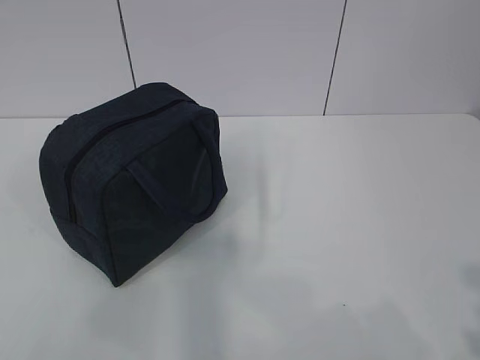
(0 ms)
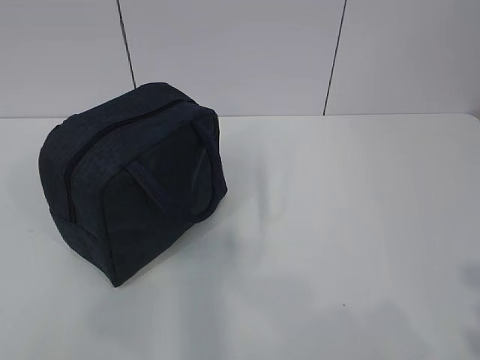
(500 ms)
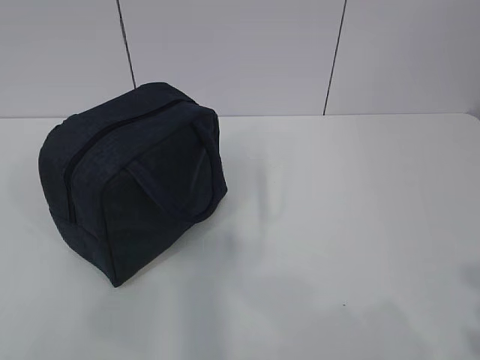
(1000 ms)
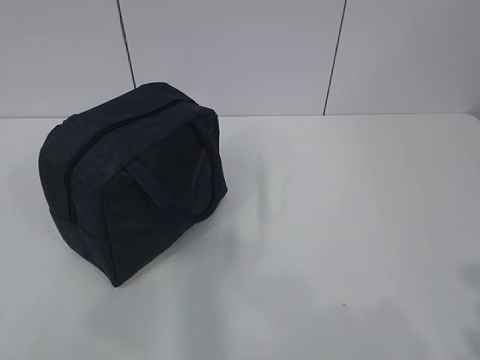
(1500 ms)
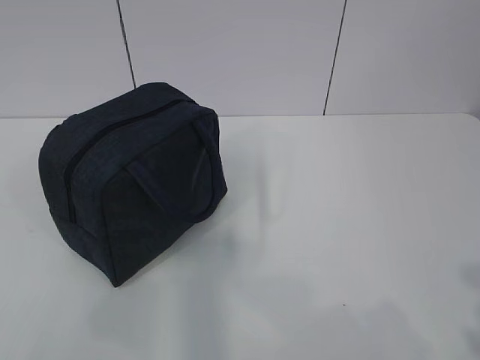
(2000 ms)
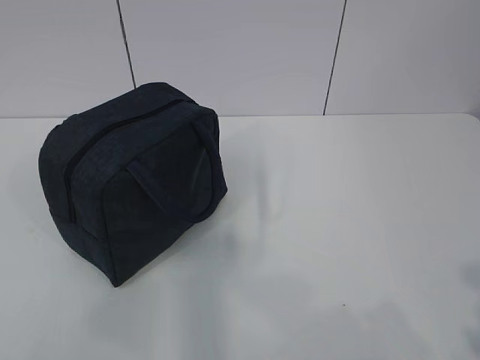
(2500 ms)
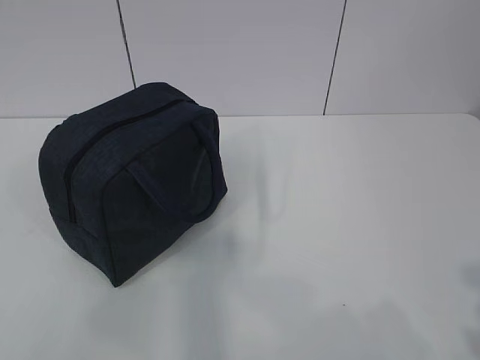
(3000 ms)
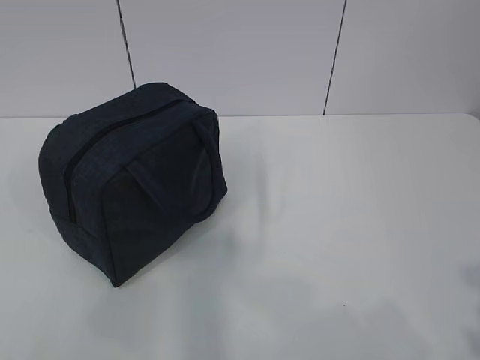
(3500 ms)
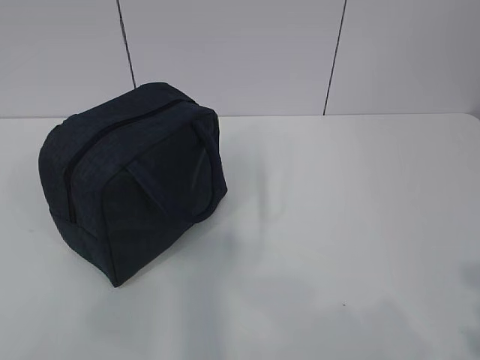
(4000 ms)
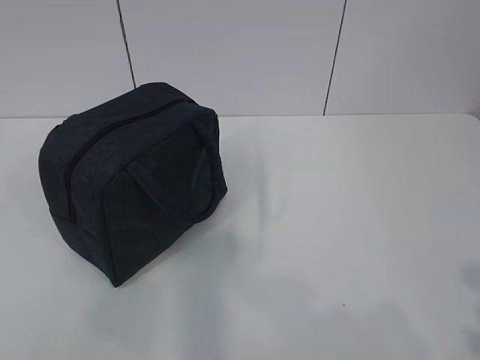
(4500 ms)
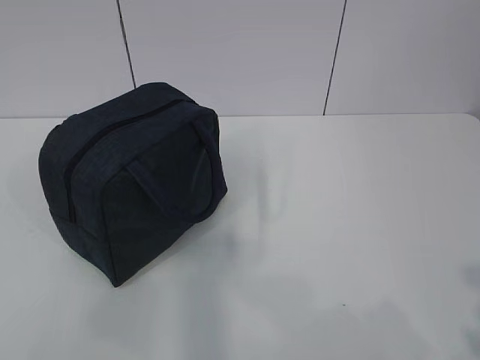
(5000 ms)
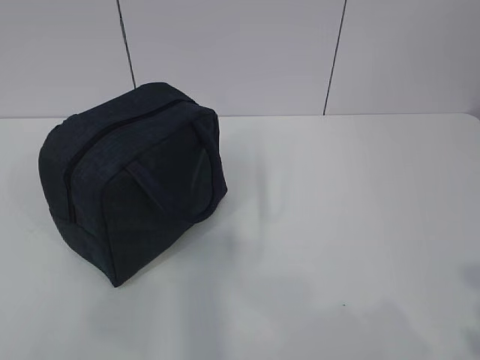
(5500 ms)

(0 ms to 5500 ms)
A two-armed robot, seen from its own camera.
0 ms - 5500 ms: Neither gripper changes place.

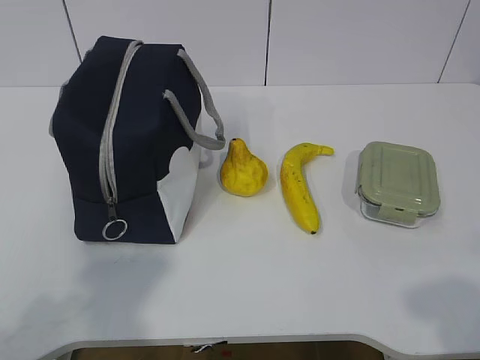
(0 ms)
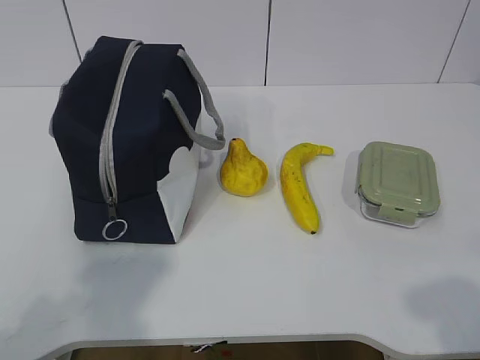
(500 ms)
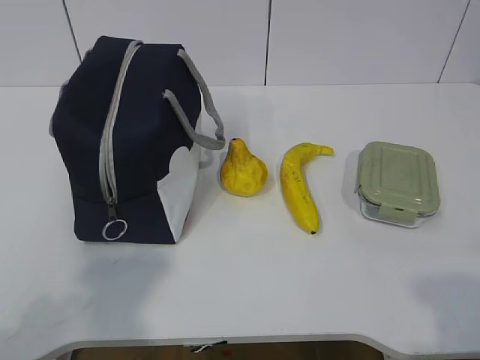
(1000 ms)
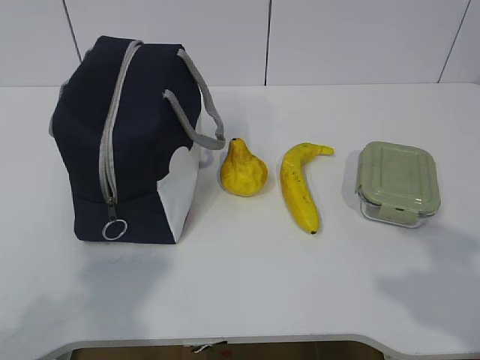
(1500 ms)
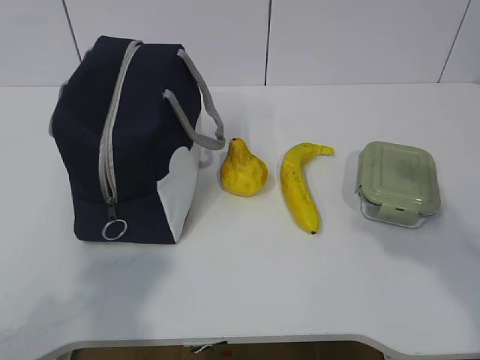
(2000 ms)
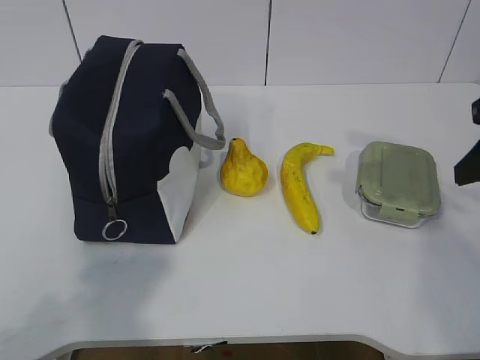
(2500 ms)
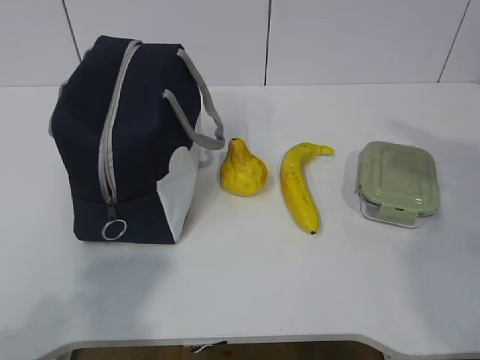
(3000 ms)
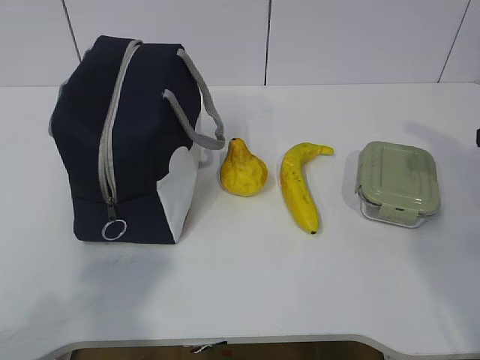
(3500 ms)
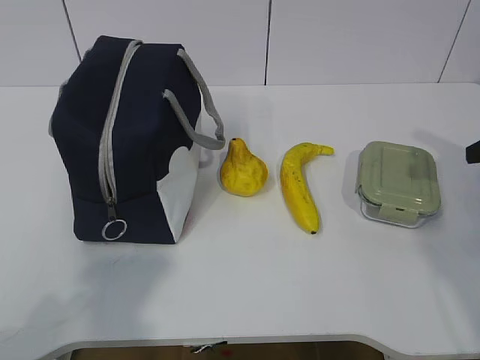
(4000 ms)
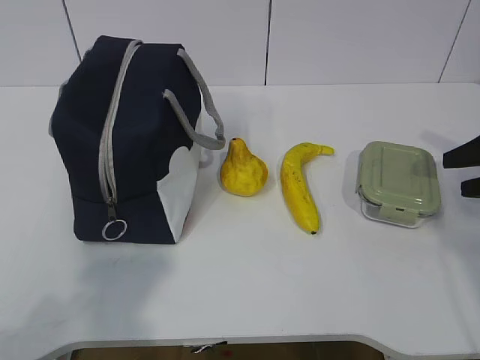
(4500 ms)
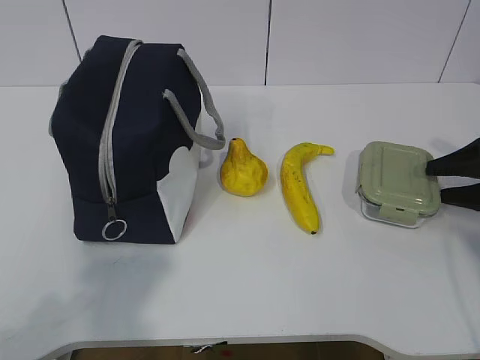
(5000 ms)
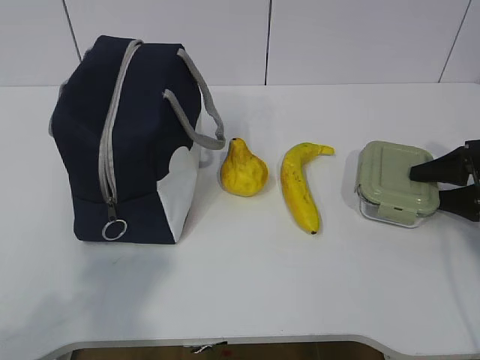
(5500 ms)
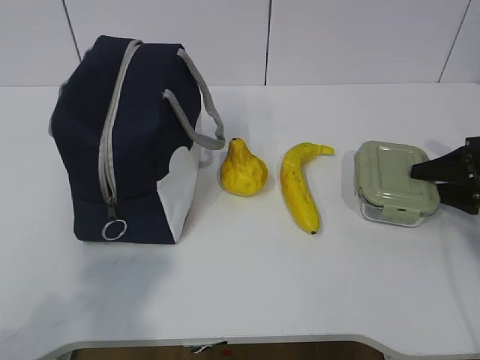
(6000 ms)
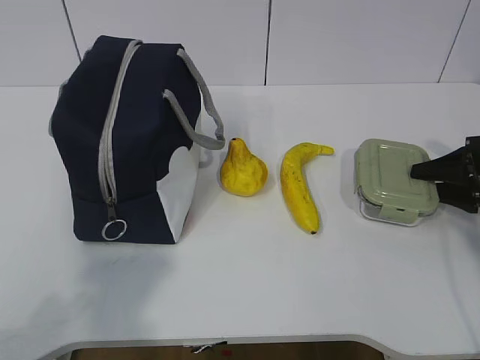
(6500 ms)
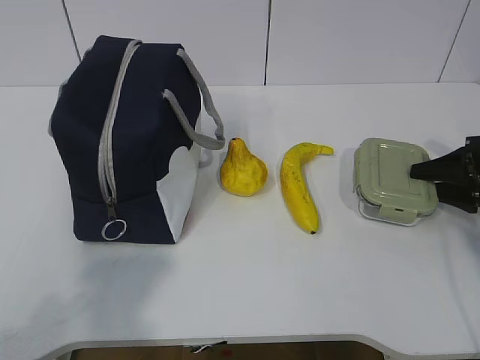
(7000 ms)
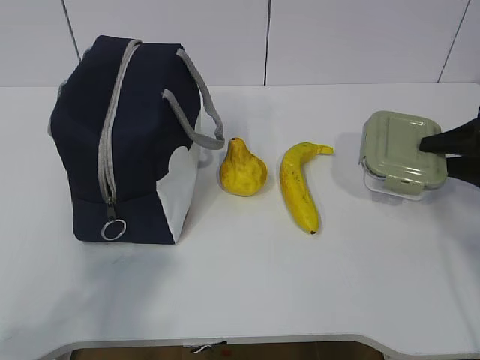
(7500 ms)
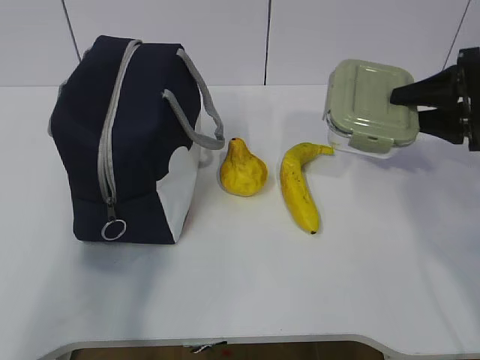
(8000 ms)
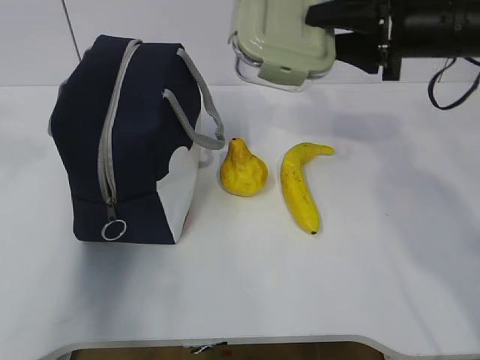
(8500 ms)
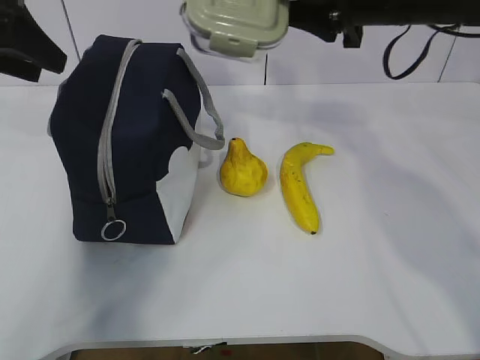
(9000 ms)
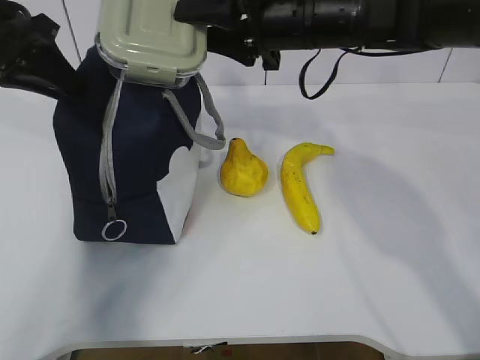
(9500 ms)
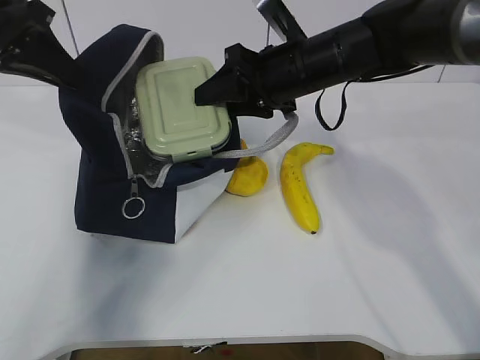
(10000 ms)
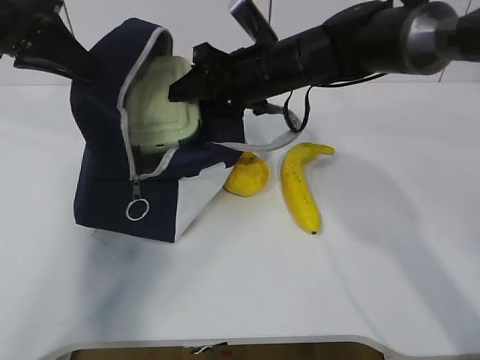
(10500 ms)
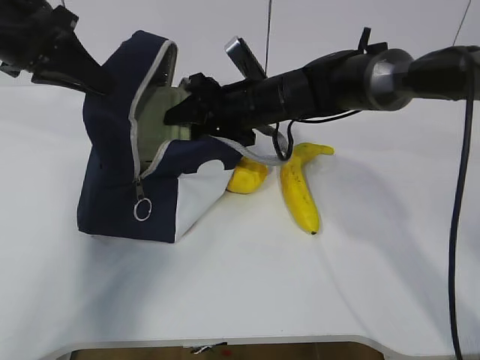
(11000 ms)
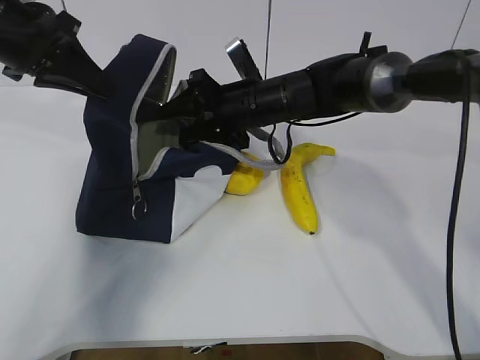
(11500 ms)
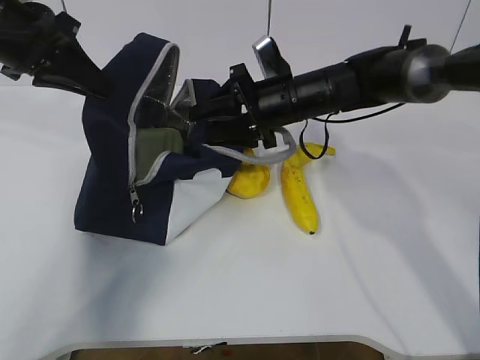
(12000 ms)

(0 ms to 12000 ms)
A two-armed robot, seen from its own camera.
Step, 0 ms - 5500 ms: Grab the lunch box with your right hand.
Step, 8000 ms - 9500 ms: Place it into the bag with your right hand.
2000 ms - 4000 ms: The right gripper travels forward and to the right by some 15 cm, and opens.
4000 ms - 6000 ms: The right gripper goes approximately 15 cm downward and forward.
6000 ms - 8000 ms: The left gripper heads forward and upward, covering about 10 cm, while the right gripper moves upward and to the left, some 10 cm.
8000 ms - 10000 ms: The right gripper moves to the left, some 25 cm, while the left gripper is displaced forward by approximately 30 cm, and closes its fingers.
10000 ms - 12000 ms: The right gripper is displaced downward by about 5 cm.

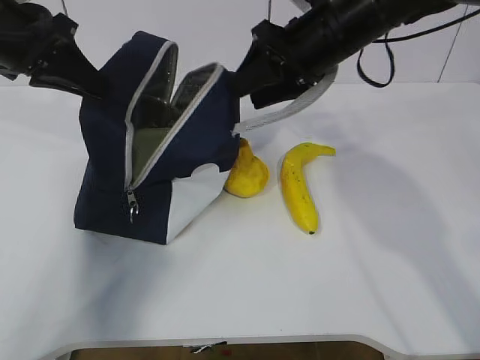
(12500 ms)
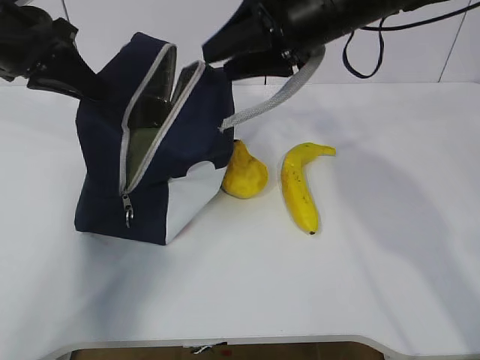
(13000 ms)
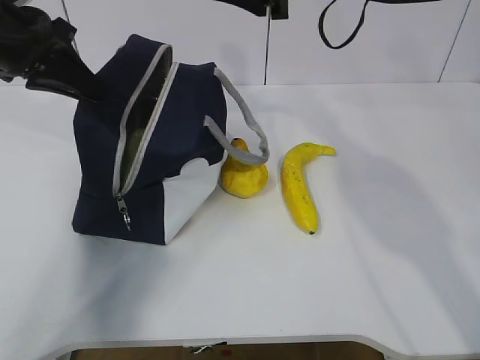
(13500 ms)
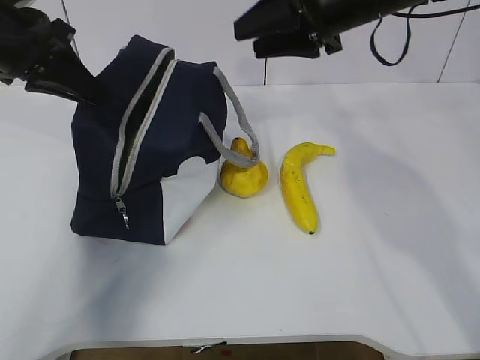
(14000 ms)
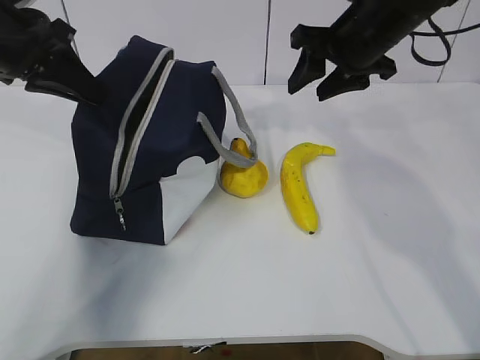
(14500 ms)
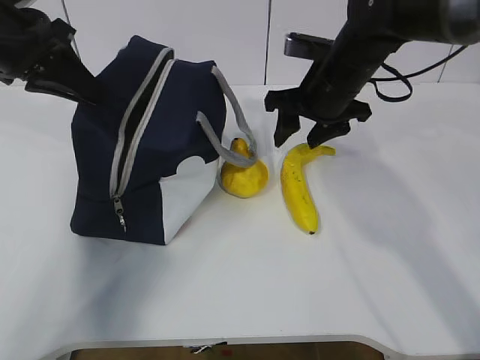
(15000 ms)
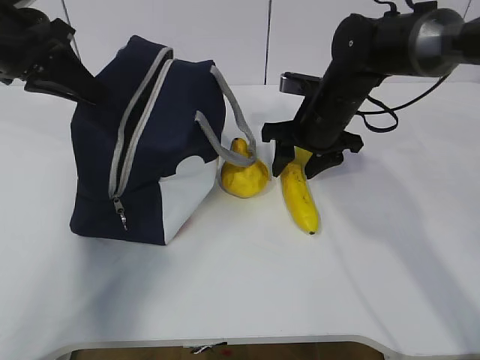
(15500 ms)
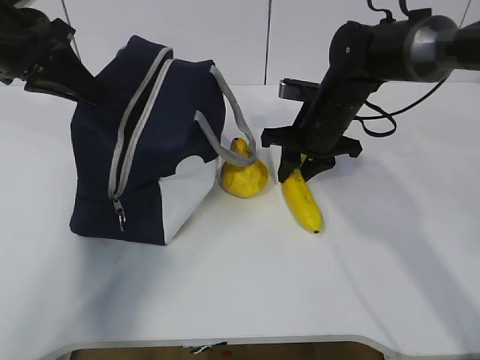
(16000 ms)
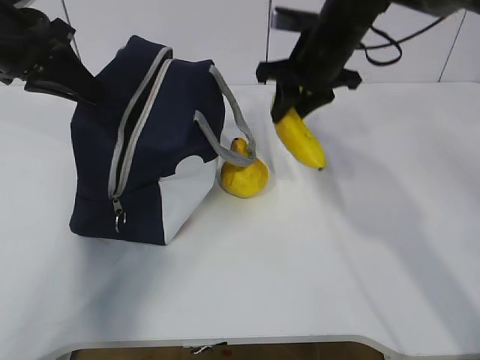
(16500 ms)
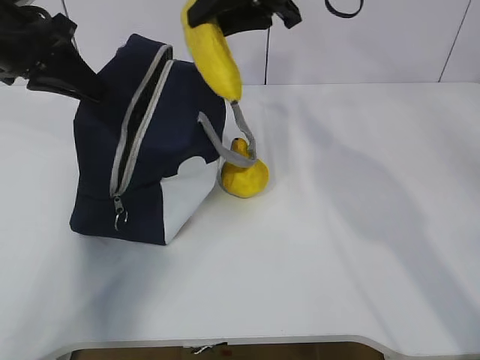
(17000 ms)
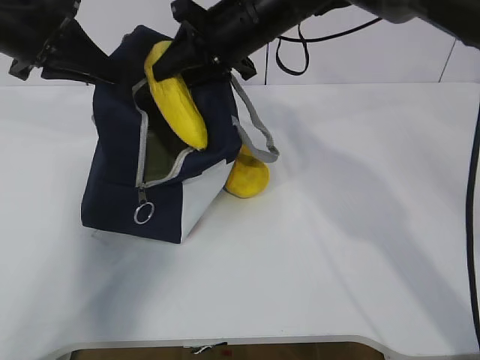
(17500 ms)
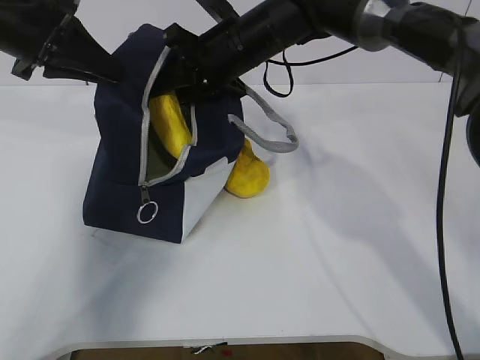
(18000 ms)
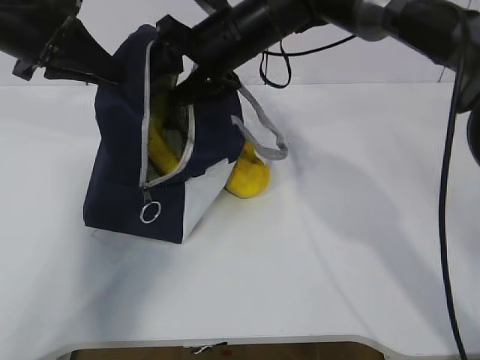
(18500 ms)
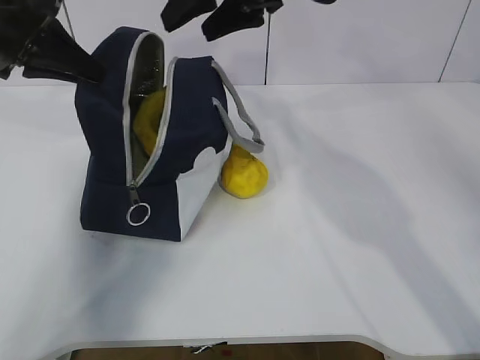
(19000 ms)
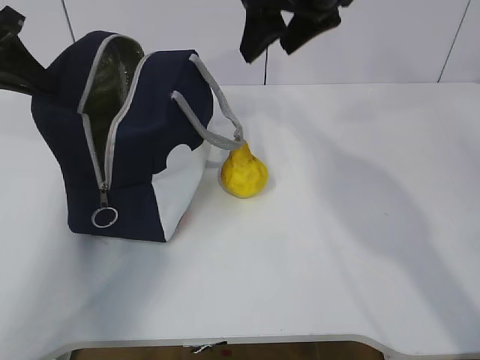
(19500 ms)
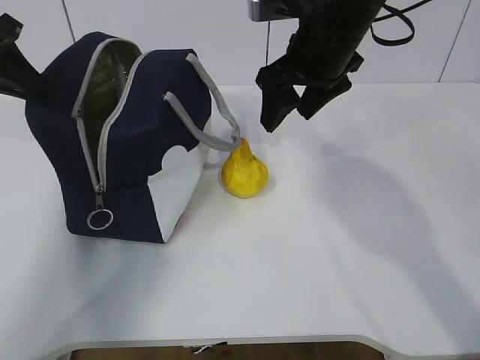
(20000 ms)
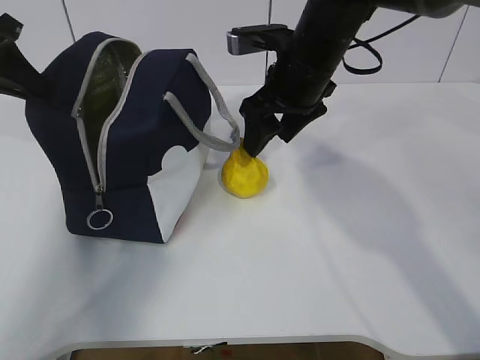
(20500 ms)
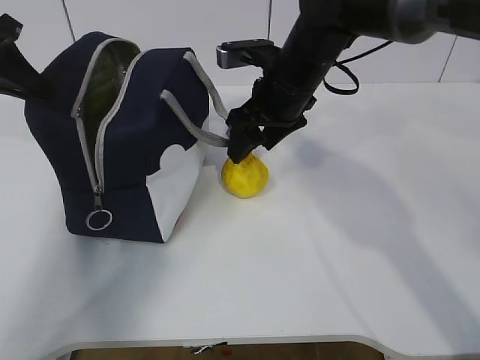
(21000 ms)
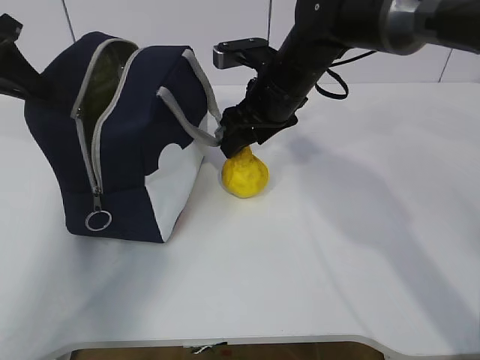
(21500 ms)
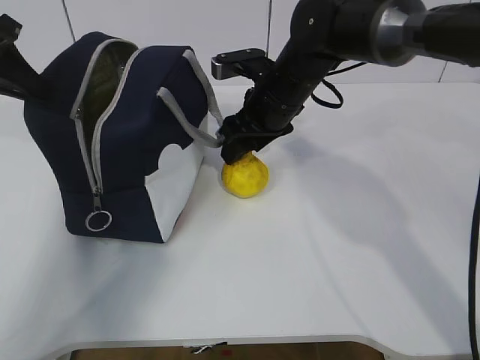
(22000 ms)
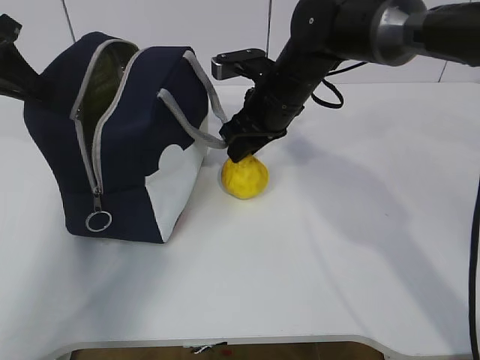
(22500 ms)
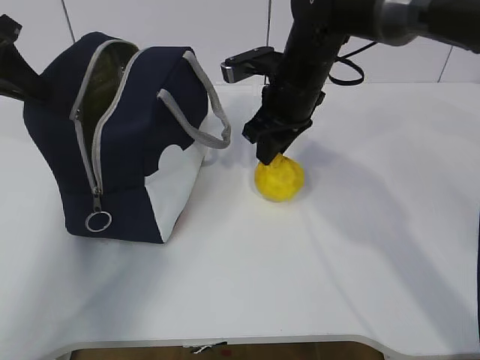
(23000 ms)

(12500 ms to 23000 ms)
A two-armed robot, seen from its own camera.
Step, 13500 ms - 15000 ms: Place it into the bag with your right hand.
Step, 15500 ms - 18500 ms: Grab the pear with your right hand.
Step, 19000 ms - 21000 ms: Secure the lunch bag with your left hand.
Step, 21500 ms - 22500 ms: Grab the lunch bag with your right hand.
14500 ms - 16500 ms: The right gripper moves some 10 cm downward and comes back.
16500 ms - 19000 ms: The right gripper swings up and down, some 10 cm each way, with 2 reversals, and opens up.
19000 ms - 21000 ms: The left gripper shifts roughly 5 cm to the left. Meanwhile the right gripper shifts some 15 cm downward.
21000 ms - 23000 ms: The right gripper closes.
